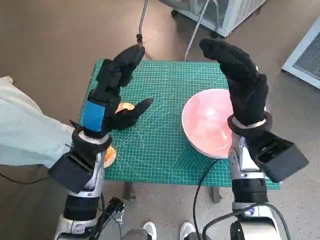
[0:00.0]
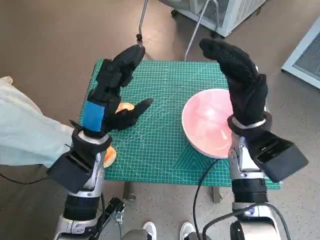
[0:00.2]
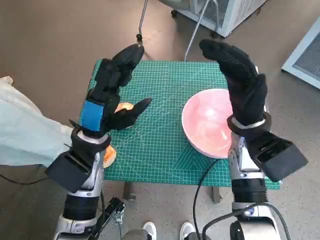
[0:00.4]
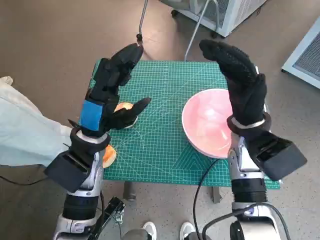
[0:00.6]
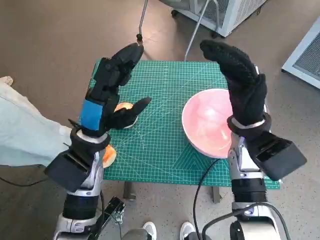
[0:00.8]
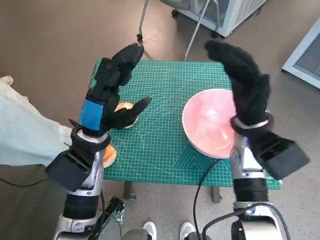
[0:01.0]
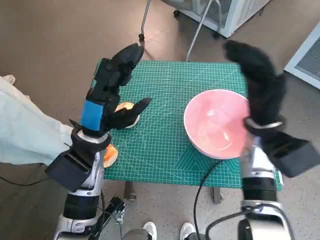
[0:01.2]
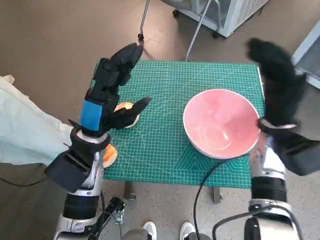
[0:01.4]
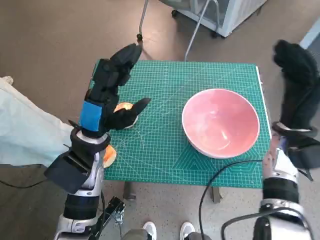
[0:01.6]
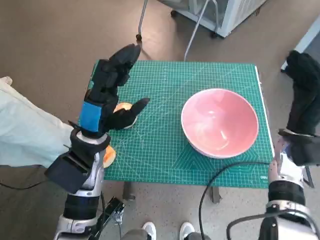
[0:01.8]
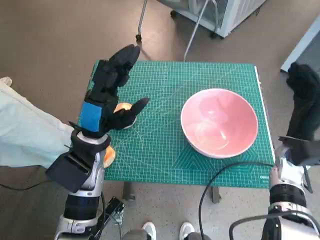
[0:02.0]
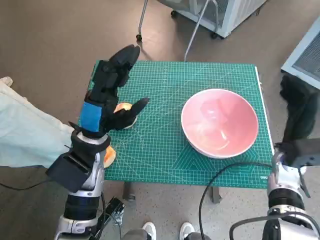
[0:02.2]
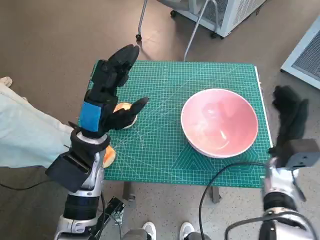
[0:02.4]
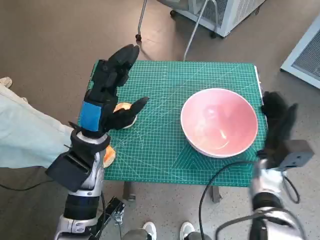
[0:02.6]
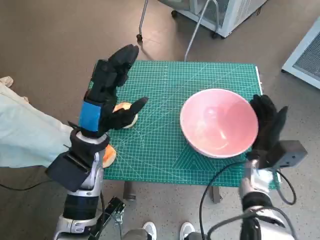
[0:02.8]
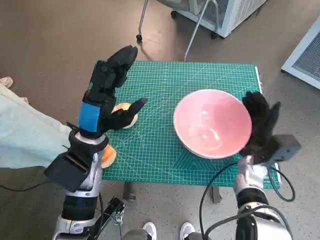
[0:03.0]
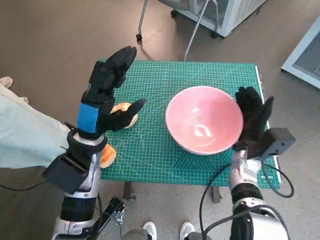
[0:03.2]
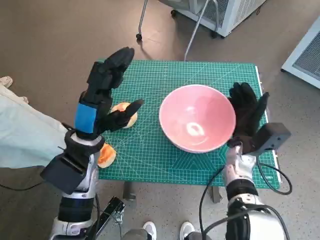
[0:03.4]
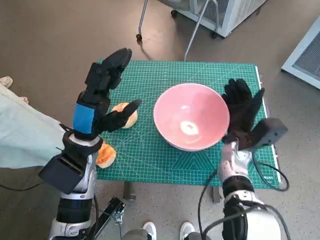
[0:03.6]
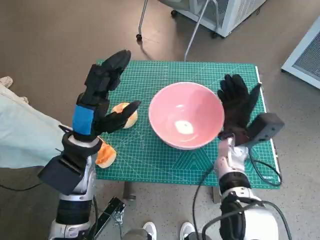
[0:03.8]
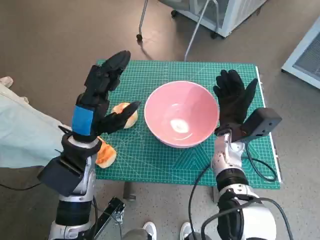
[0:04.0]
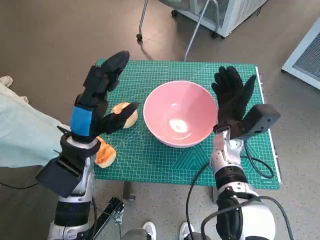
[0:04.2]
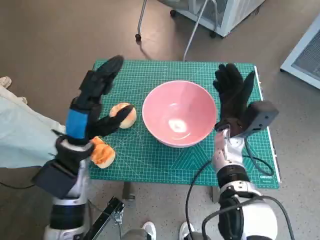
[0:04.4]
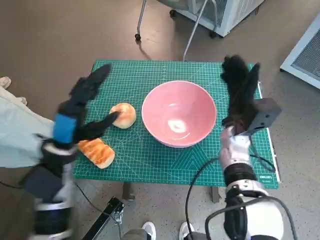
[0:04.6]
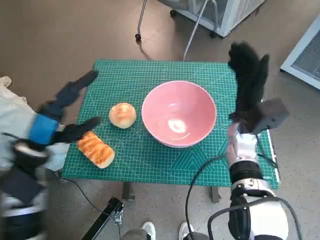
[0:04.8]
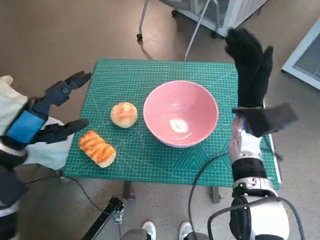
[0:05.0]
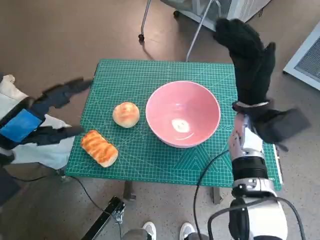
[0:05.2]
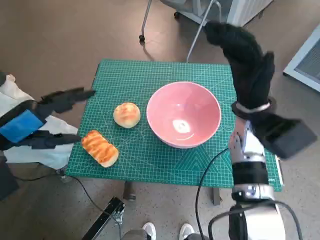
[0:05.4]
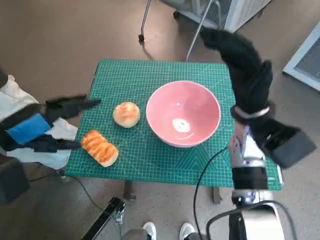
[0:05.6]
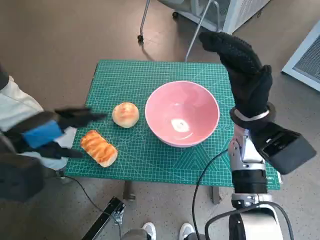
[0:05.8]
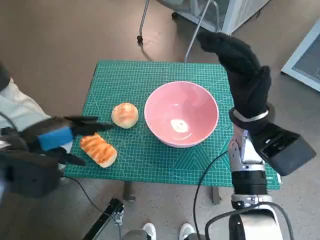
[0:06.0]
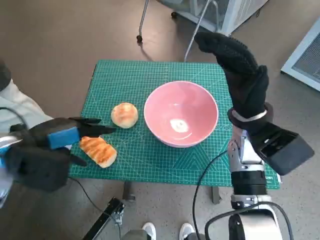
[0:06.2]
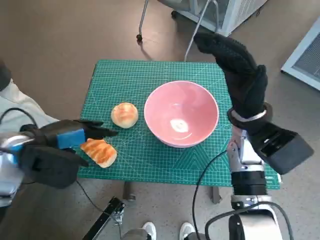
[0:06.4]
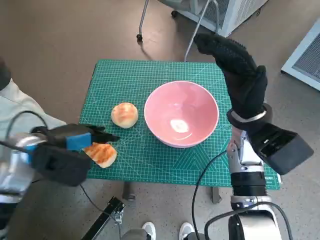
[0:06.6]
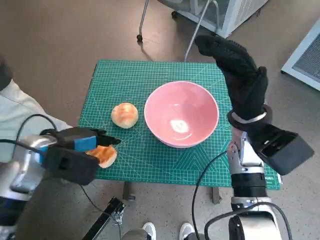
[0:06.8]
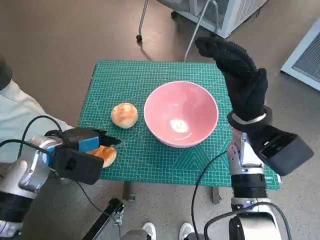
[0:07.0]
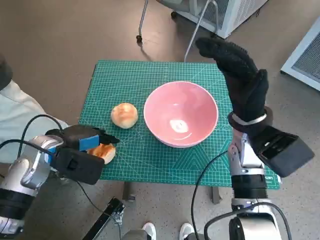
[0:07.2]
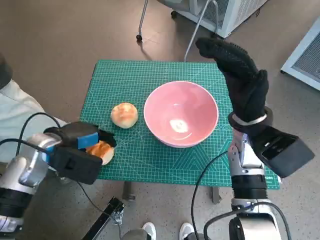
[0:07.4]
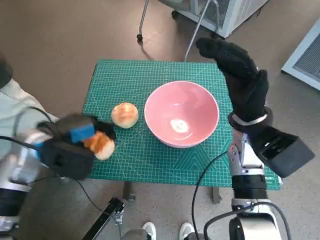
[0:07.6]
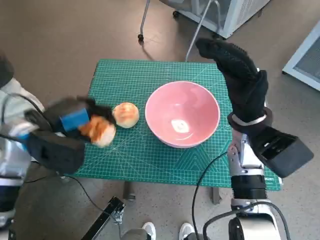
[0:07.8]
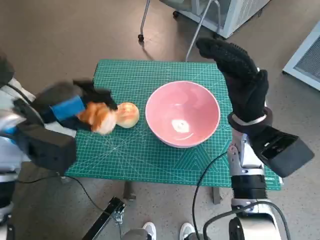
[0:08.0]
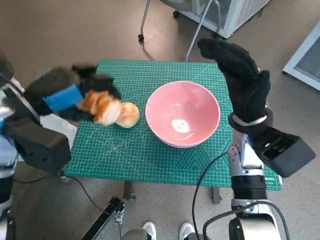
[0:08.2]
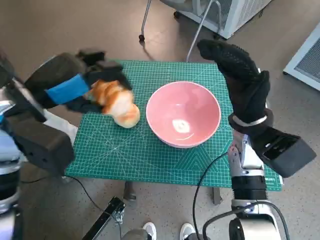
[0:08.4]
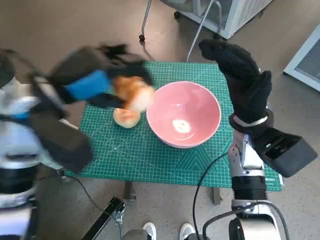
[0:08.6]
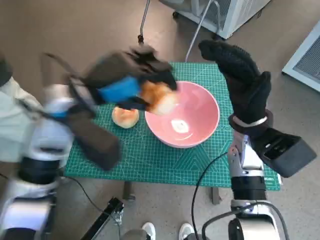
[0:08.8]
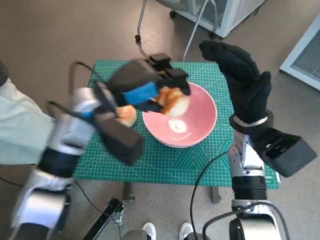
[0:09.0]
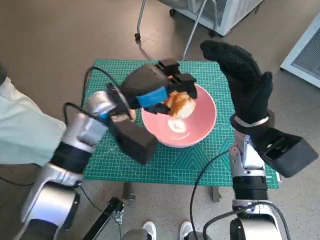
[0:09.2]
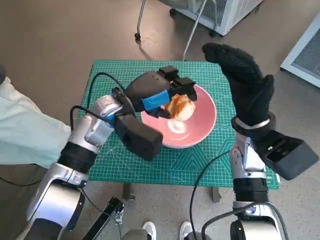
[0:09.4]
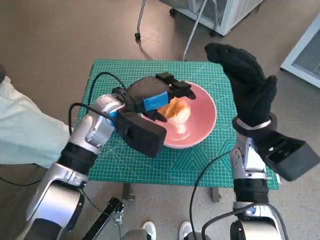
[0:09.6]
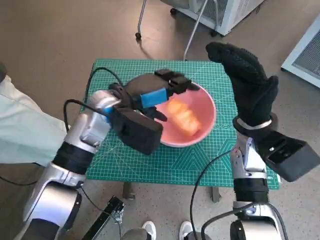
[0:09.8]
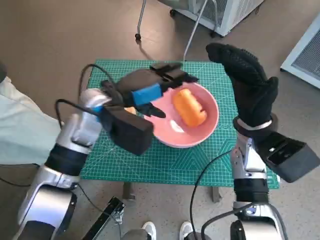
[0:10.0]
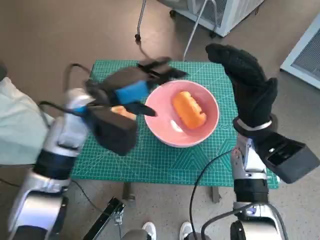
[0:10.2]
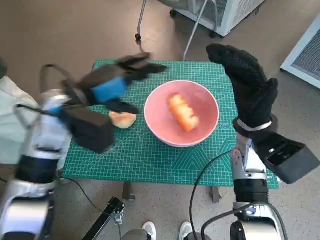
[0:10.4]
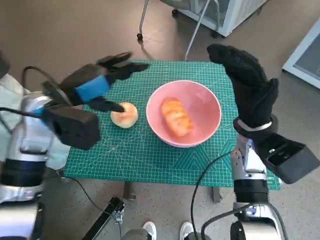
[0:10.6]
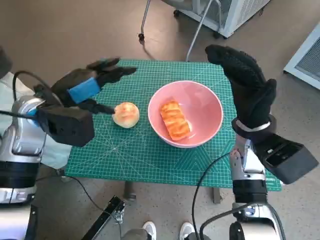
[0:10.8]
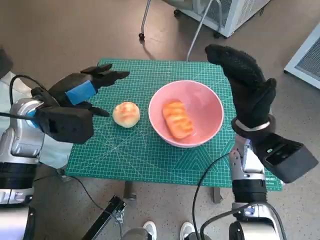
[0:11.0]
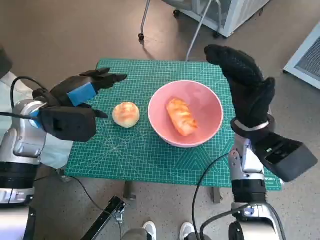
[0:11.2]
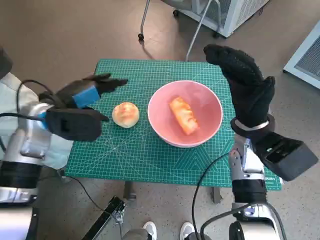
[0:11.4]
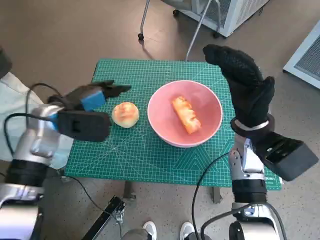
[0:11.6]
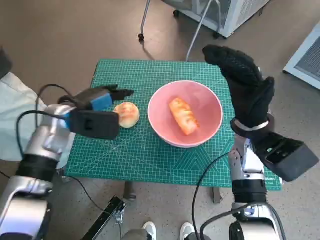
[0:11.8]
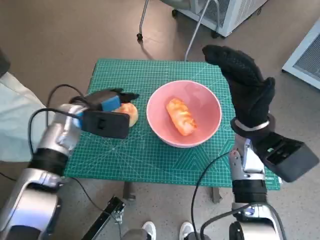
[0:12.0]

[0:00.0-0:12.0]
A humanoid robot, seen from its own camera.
Task of the whole recording: Push the bowl to the center of the table and put the bread into the bowl.
Step, 0:00.0 to 0:04.2: Move the pink bowl to the center of table with right hand.
Step, 0:04.4 to 0:07.2: Grasp the long bread with left hand.
Step, 0:07.4 to 0:10.0: Place the long bread in pink bowl with left hand.
0:01.6 to 0:03.0: The right hand travels downward by roughly 10 cm.
0:03.0 to 0:04.4: The right hand is displaced to the left and upward by about 10 cm.
0:04.4 to 0:06.0: The right hand goes about 10 cm upward. Meanwhile the left hand heads to the left and upward, covering roughly 10 cm.
0:06.0 to 0:07.6: The left hand heads downward, covering about 5 cm.
0:07.6 to 0:09.0: The left hand heads to the right and upward, covering approximately 15 cm.
0:10.4 to 0:12.0: The left hand is displaced downward by approximately 5 cm.

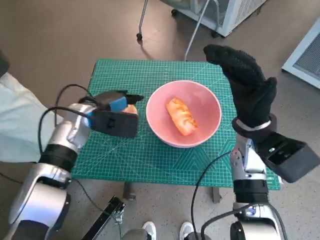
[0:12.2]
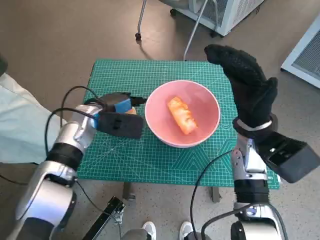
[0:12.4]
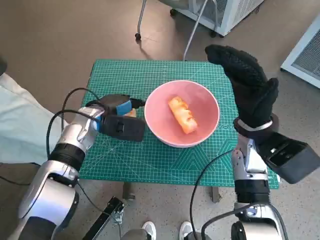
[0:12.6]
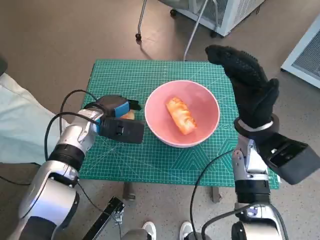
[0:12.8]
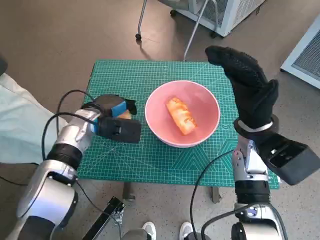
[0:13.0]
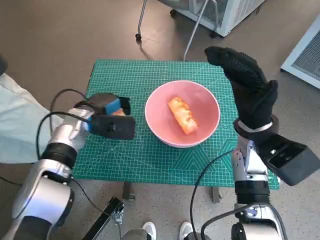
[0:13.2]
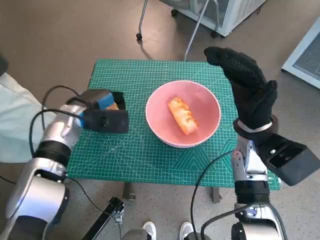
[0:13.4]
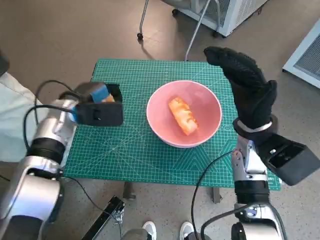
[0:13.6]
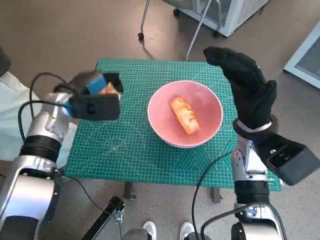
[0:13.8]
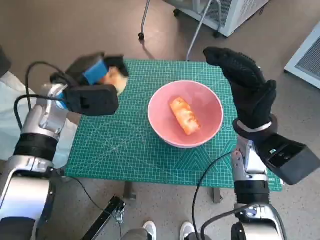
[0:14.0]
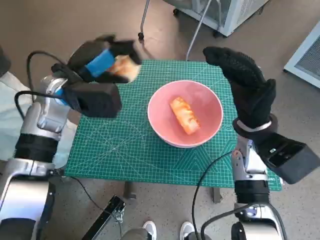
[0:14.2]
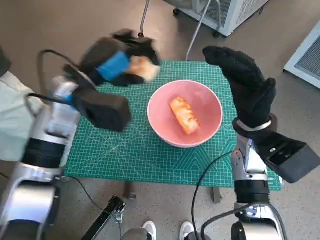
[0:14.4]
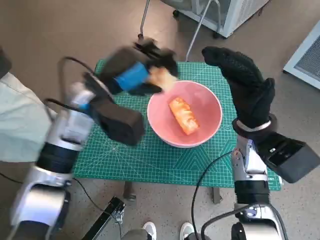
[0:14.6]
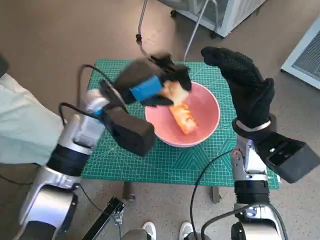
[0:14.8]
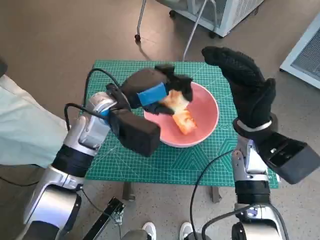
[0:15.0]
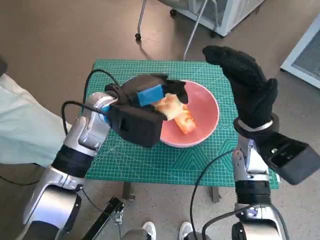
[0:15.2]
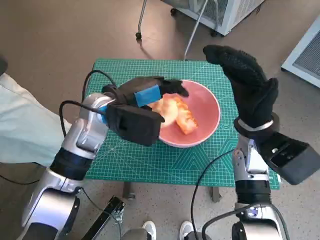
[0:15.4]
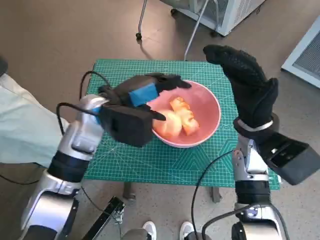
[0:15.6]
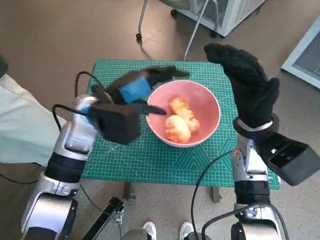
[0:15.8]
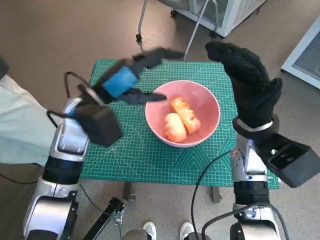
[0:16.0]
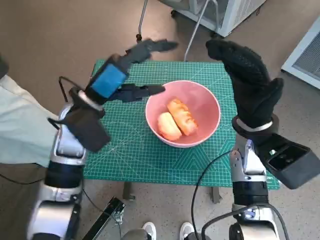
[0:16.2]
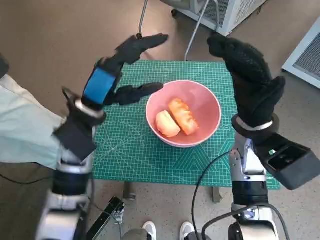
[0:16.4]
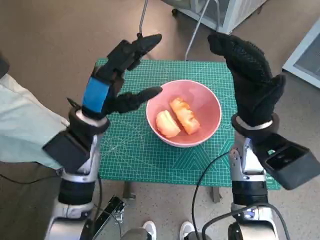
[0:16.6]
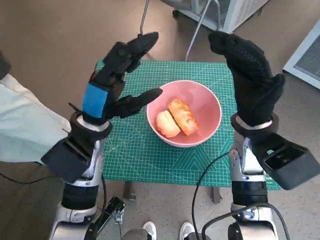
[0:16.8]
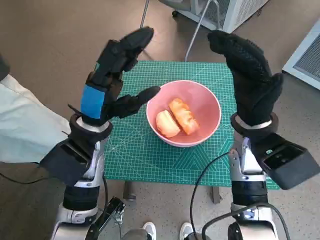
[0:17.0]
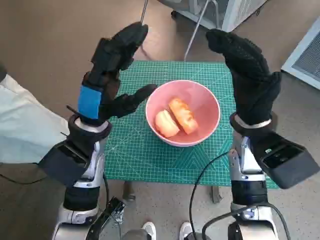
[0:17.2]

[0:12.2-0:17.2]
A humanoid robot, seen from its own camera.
Task of the whole recording: Push the bowl to the center of the table and put the bread into the bowl.
Step, 0:13.2 to 0:15.6: Place the round bread in pink bowl with left hand.
0:13.8 to 0:15.6: The left hand travels to the right by about 10 cm.
0:15.6 to 0:17.2: The left hand changes place by some 5 cm.

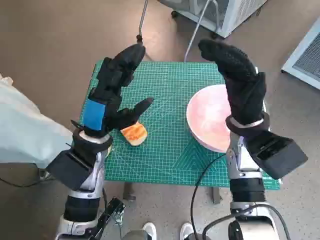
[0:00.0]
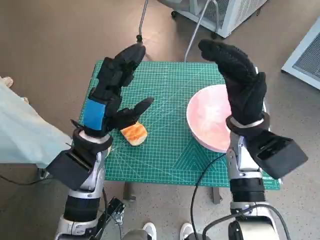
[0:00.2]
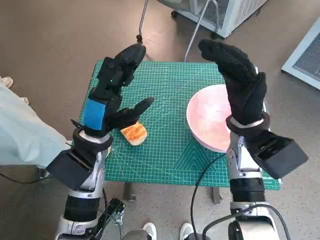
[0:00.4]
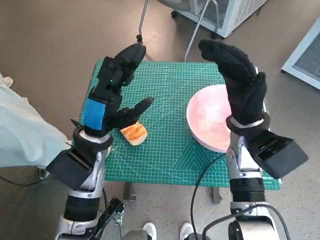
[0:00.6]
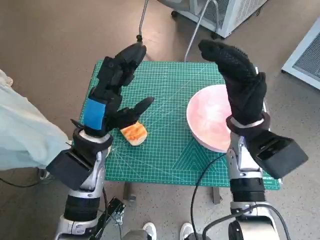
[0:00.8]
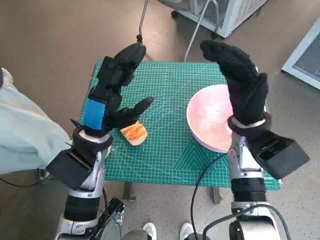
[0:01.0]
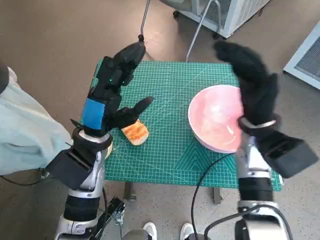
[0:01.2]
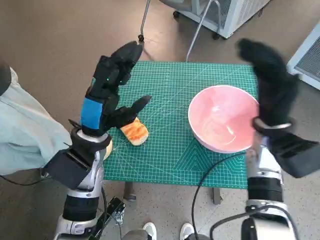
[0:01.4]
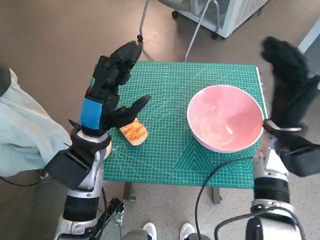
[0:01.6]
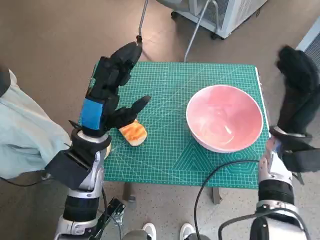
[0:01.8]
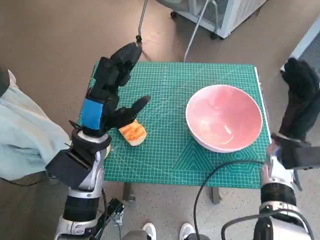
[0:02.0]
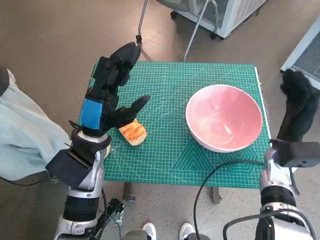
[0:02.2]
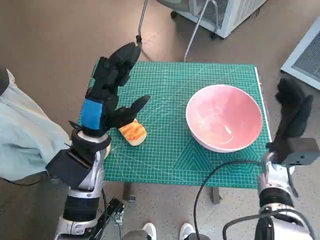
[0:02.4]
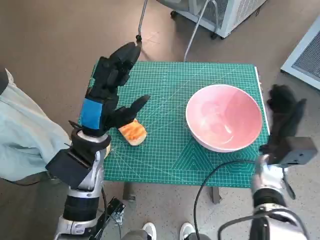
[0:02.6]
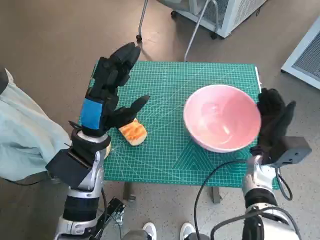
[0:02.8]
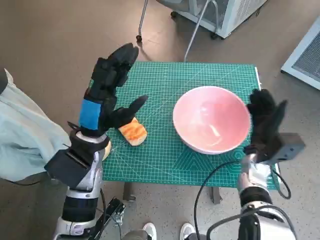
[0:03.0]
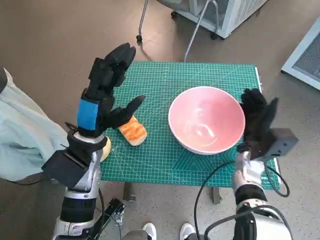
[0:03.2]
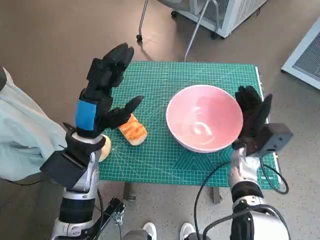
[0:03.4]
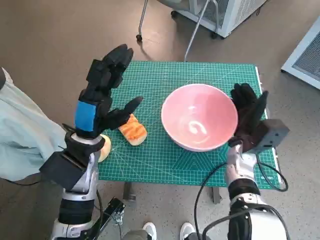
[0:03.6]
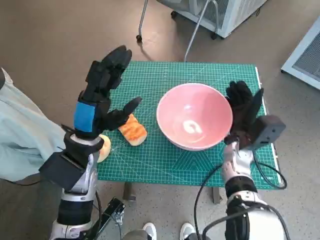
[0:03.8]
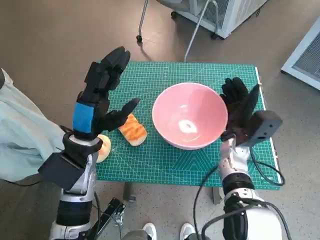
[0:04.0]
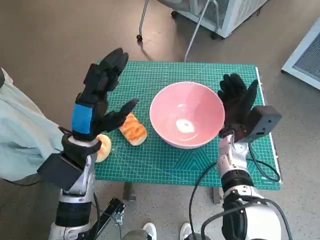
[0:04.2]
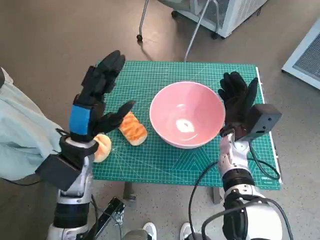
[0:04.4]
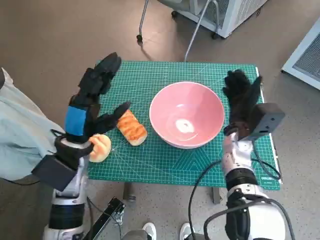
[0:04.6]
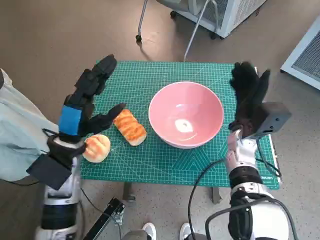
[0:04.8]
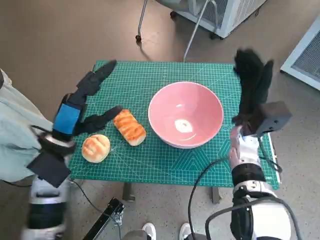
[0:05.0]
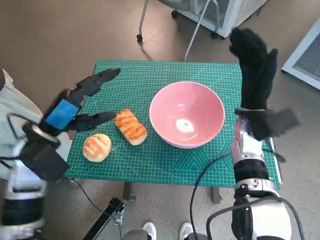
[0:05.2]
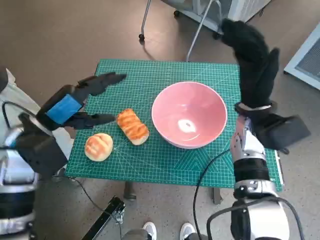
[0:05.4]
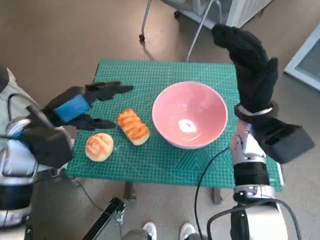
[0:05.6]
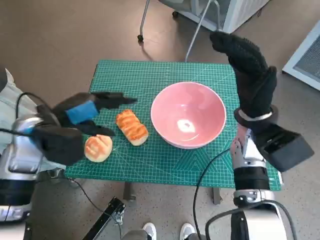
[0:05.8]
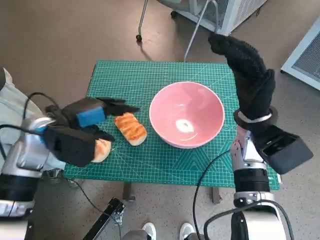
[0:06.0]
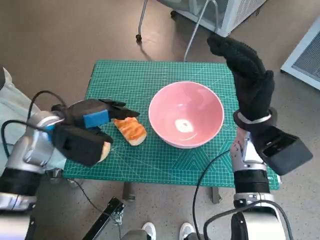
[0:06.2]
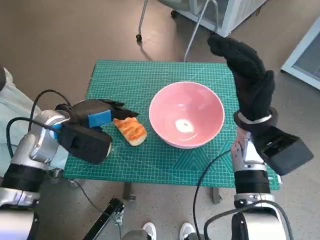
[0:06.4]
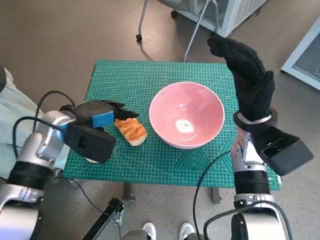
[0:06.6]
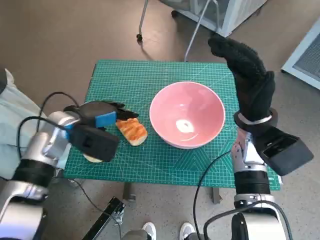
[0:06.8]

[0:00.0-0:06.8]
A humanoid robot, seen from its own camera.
Task of the whole recording: Push the bowl to the center of the table and put the bread into the bowl.
Step, 0:00.0 to 0:04.4: Move the pink bowl to the center of table with right hand.
0:01.4 to 0:02.8: The right hand travels downward by some 10 cm.
0:02.8 to 0:04.0: The right hand is displaced to the left by roughly 5 cm.
0:04.0 to 0:05.4: The left hand is displaced to the left by some 10 cm. The right hand shifts some 10 cm upward.
0:05.4 to 0:06.8: The left hand shifts some 5 cm forward.
